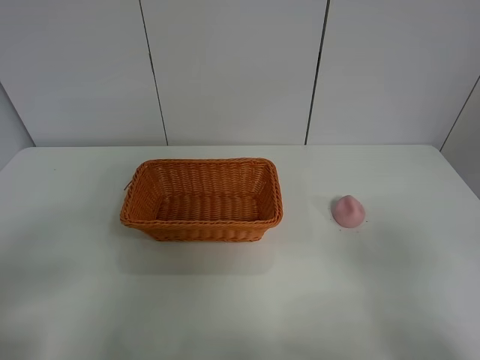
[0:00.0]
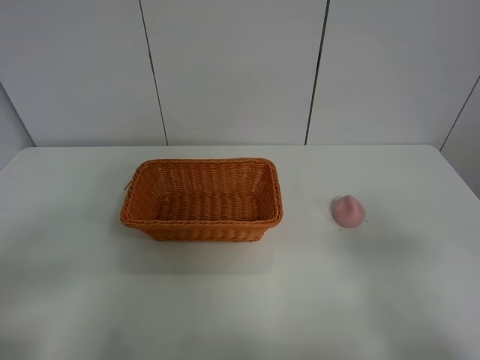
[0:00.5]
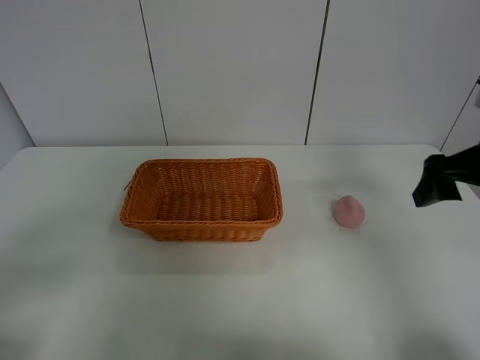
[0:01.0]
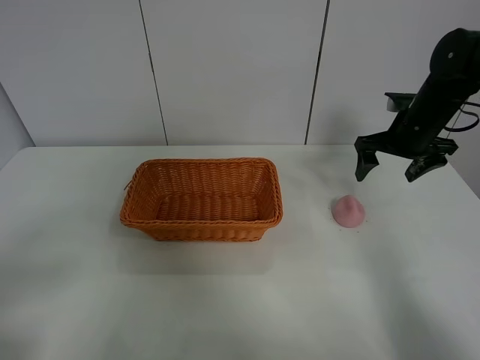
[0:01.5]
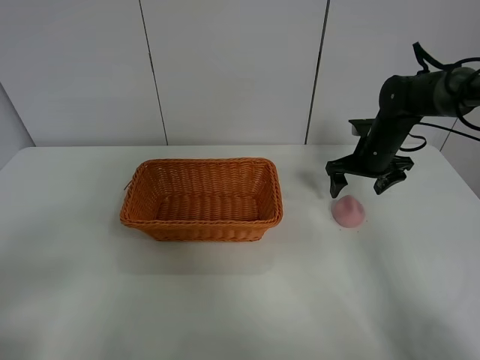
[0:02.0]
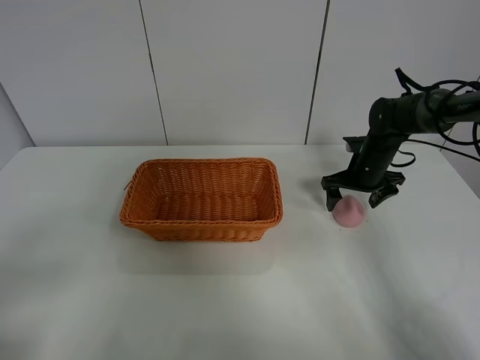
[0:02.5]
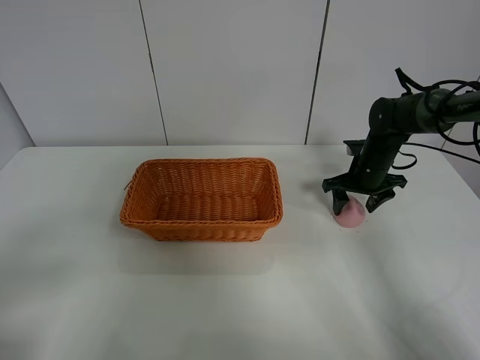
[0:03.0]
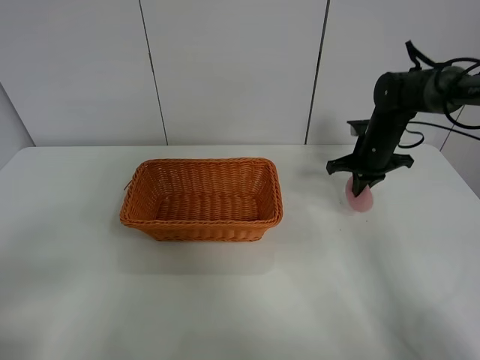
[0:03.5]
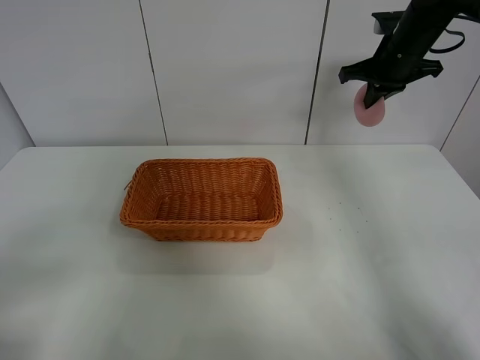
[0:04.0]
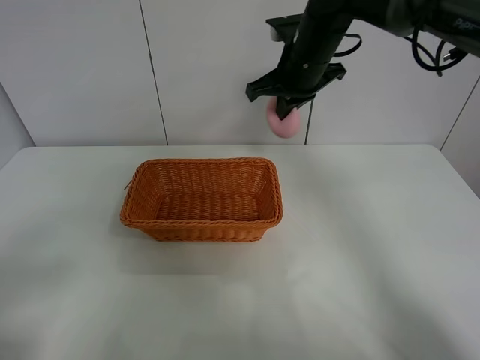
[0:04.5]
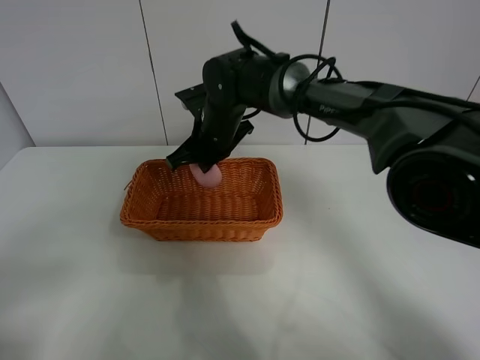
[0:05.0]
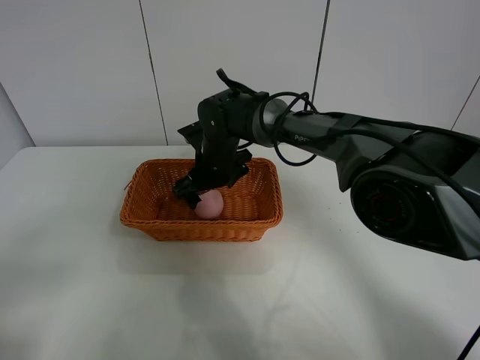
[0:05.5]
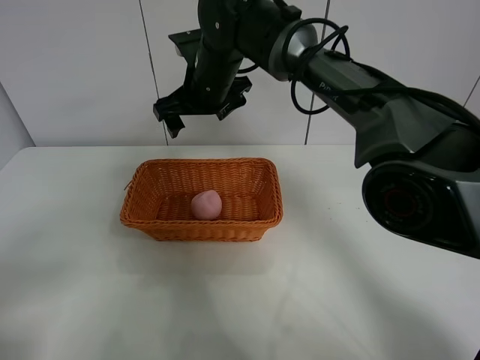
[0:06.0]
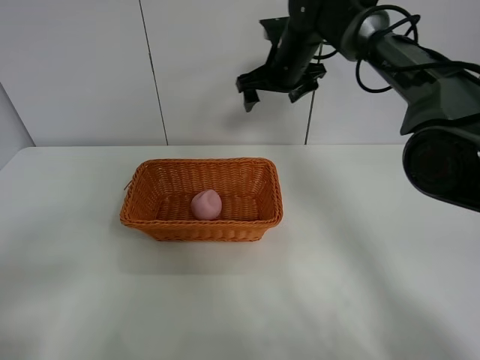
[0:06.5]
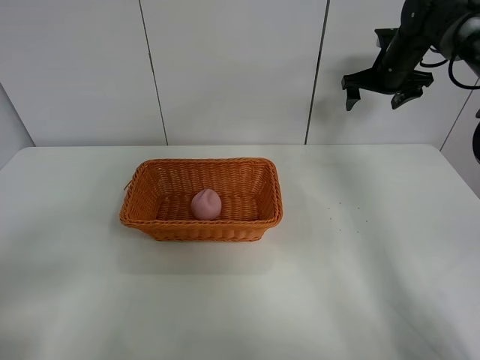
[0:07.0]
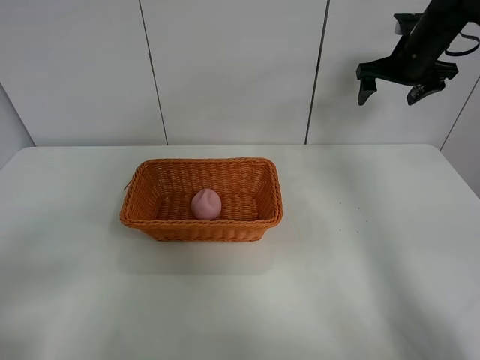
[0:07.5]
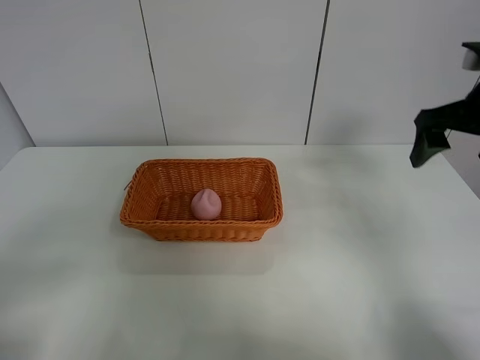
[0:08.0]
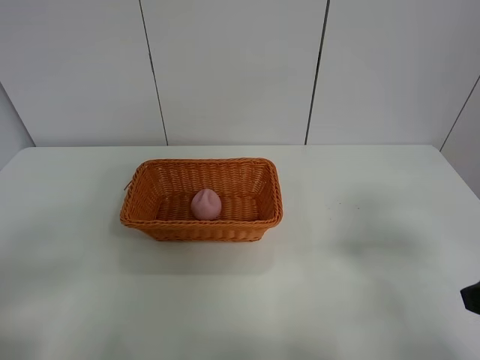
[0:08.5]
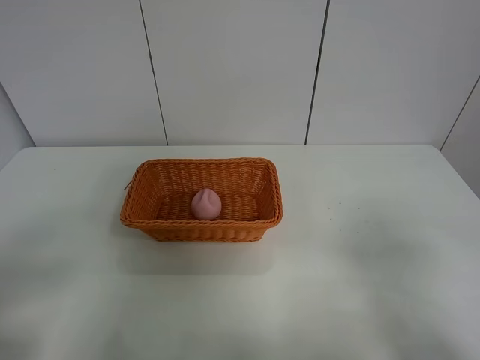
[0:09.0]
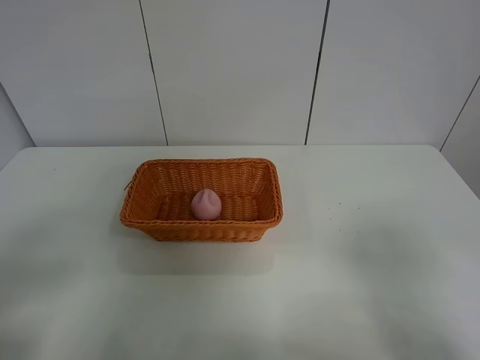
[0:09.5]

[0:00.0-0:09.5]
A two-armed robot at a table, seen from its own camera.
Step, 0:00.0 to 0:03.0: Grasp the peach with right gripper.
Step, 0:03.5 to 0:06.0: Place the peach in the basket with right gripper.
0:00.0 to 0:02.0: The right gripper is displaced forward by some 40 cm.
0:02.0 to 0:04.0: The right gripper shifts roughly 15 cm upward, and closes up.
0:04.0 to 0:05.5: The right gripper goes some 30 cm to the left and downward, and opens its fingers.
0:05.5 to 0:07.5: The right gripper goes some 35 cm to the right and upward.
0:07.5 to 0:09.5: The right gripper moves backward, some 50 cm.

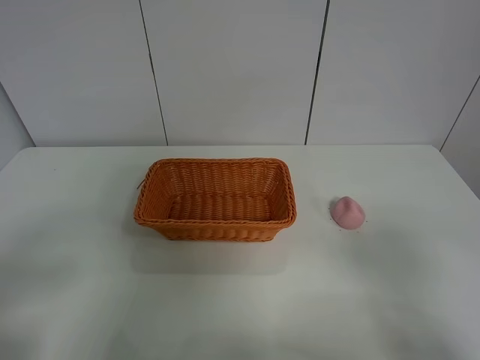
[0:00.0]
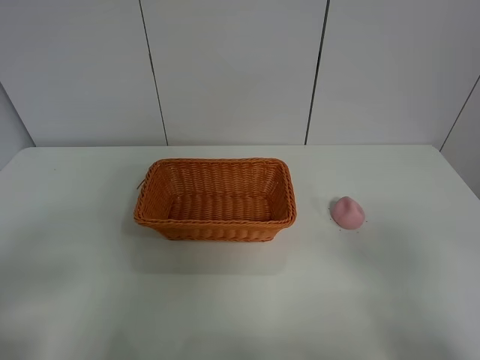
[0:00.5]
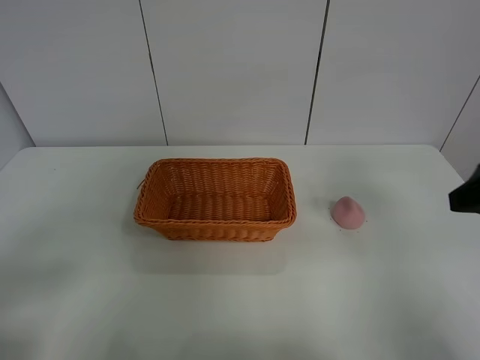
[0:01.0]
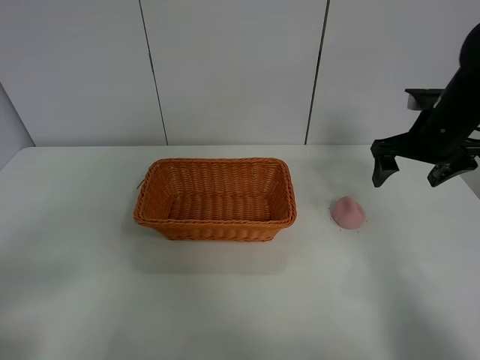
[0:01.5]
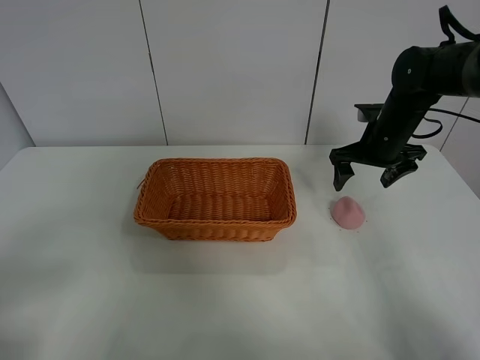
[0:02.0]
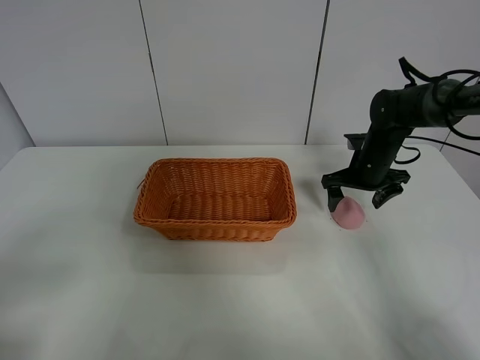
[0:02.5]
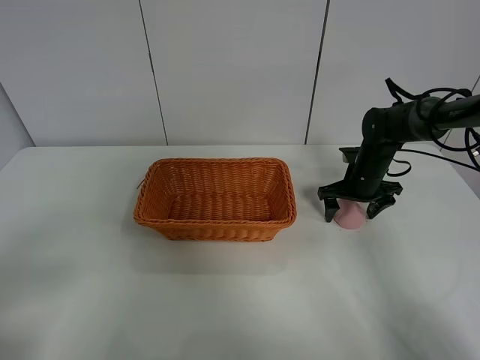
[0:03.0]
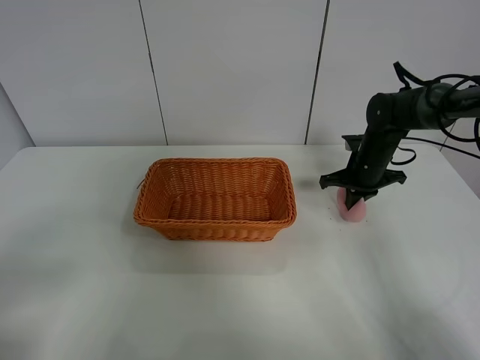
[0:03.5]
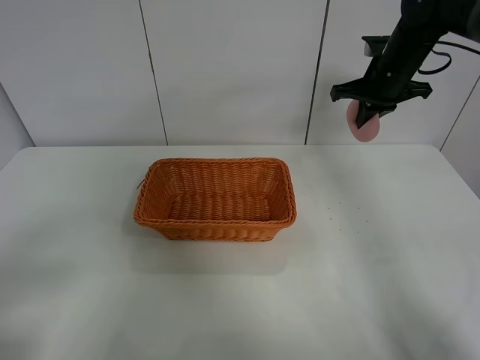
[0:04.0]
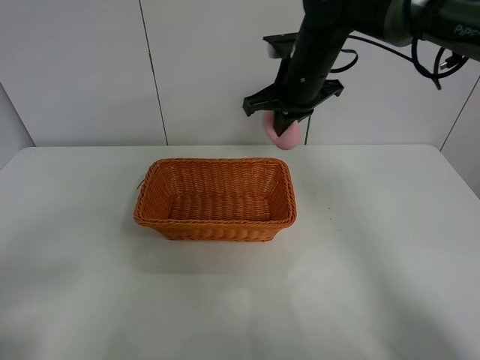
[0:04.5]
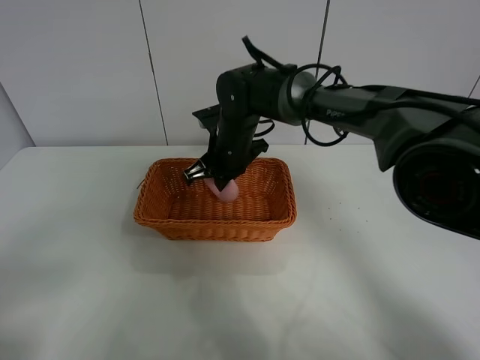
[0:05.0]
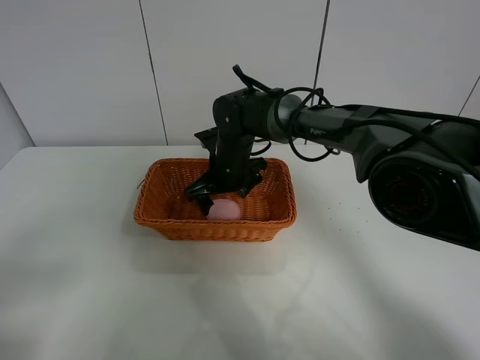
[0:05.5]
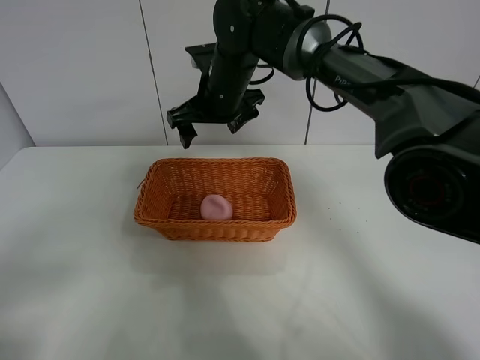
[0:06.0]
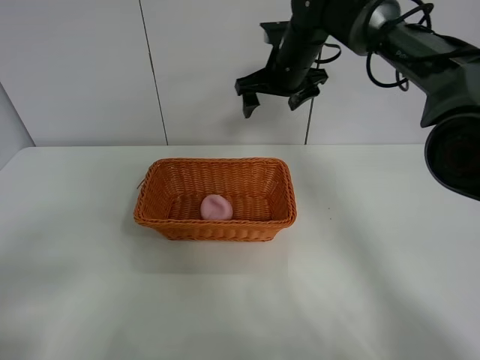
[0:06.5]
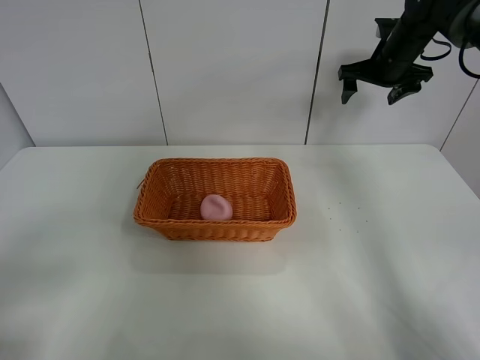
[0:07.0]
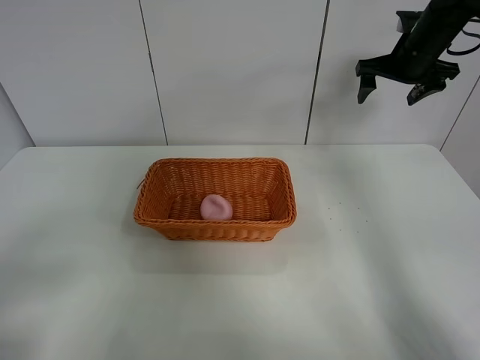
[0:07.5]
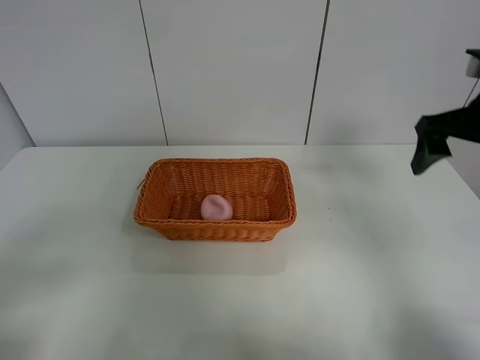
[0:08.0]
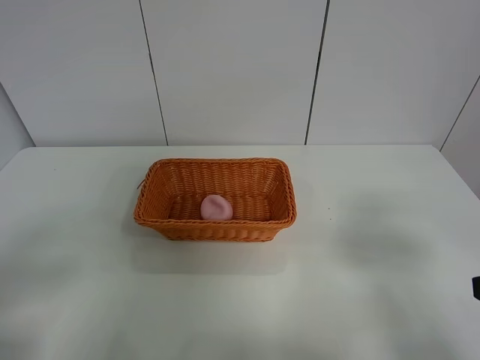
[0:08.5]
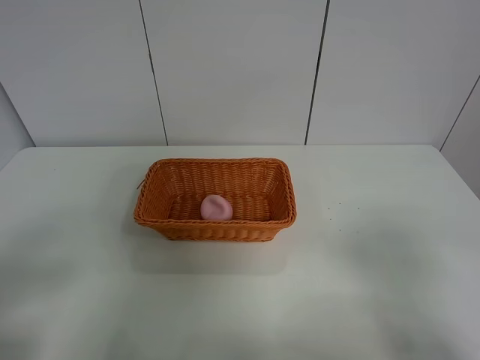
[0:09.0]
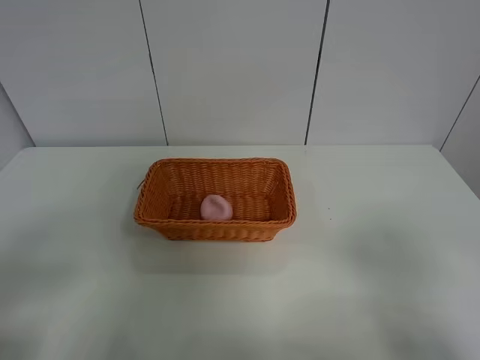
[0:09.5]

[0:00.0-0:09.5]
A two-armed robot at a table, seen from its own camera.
Step, 0:00.0 to 0:03.0: Grasp the peach with right gripper.
Step, 0:03.5 to 0:06.0: Place the peach in the basket with right gripper.
0:00.0 to 0:02.0: The right gripper travels forward by some 40 cm.
0:02.0 to 0:04.0: The right gripper moves upward, about 10 cm, and closes.
0:04.0 to 0:05.5: The right gripper is displaced to the left and downward by some 30 cm, and opens up.
0:05.5 to 0:07.5: The right gripper moves to the right and upward, some 35 cm.
0:07.5 to 0:09.5: The right gripper heads backward, covering roughly 50 cm.
